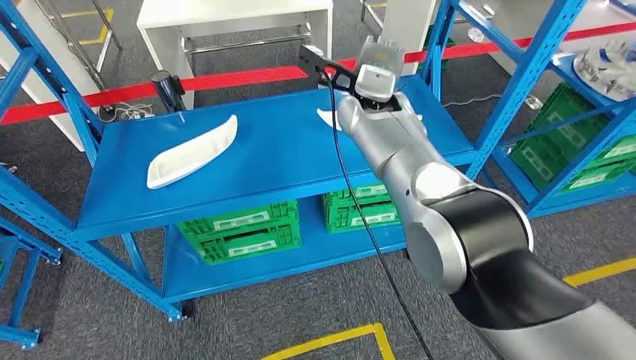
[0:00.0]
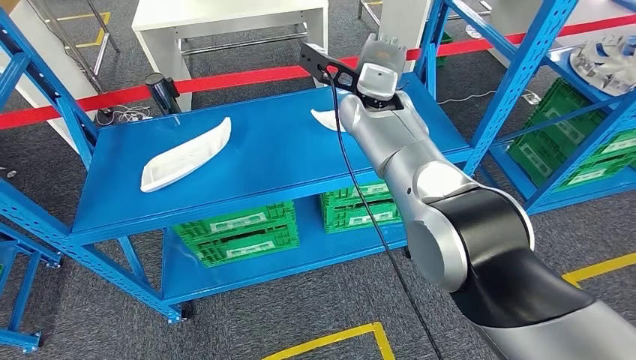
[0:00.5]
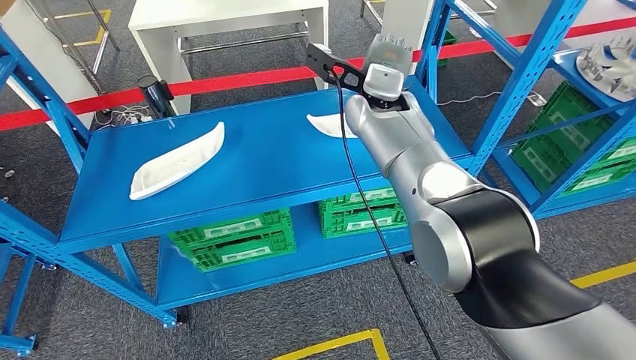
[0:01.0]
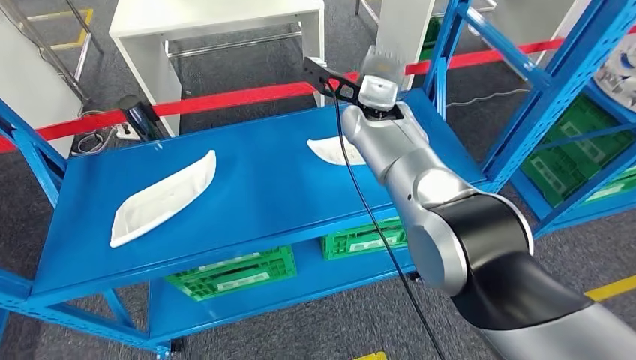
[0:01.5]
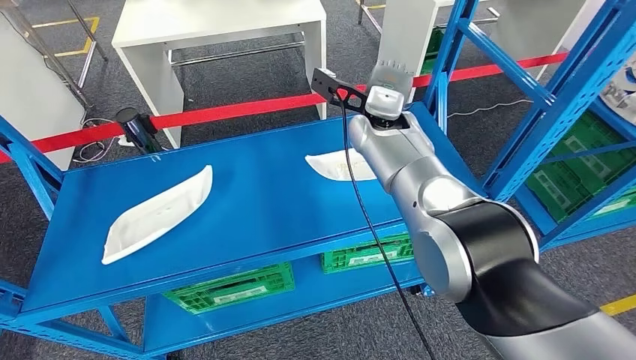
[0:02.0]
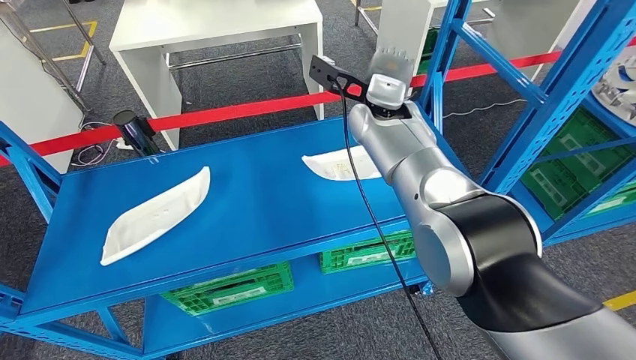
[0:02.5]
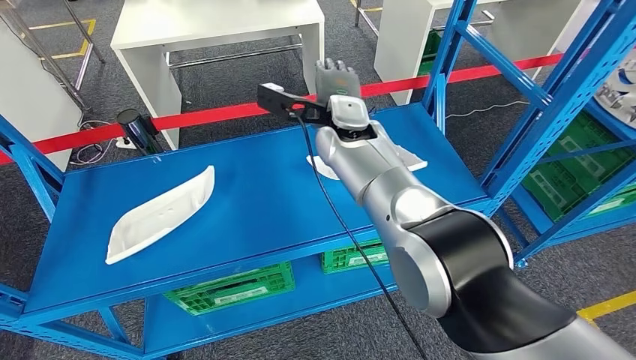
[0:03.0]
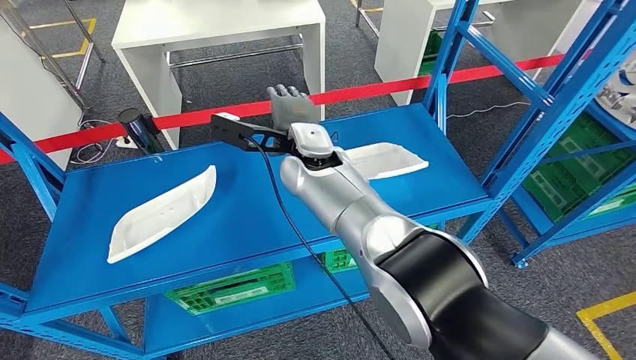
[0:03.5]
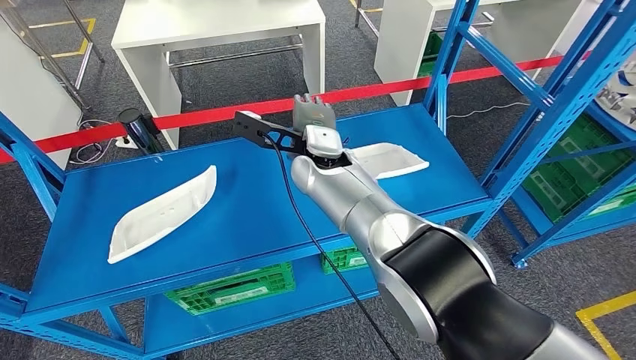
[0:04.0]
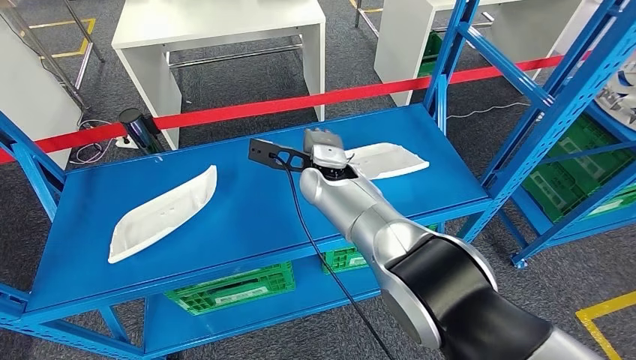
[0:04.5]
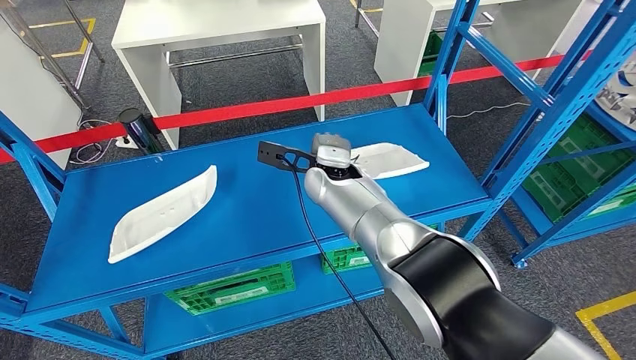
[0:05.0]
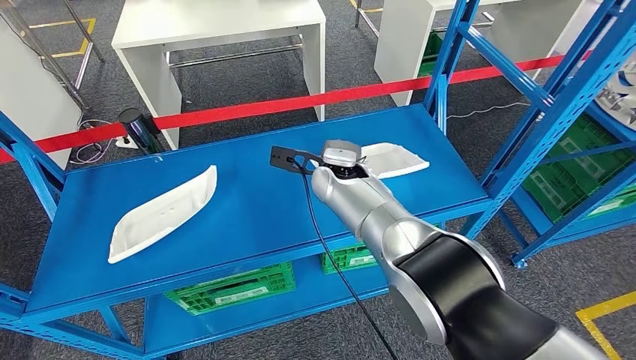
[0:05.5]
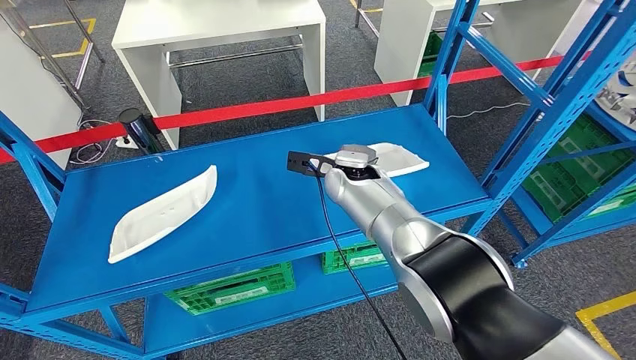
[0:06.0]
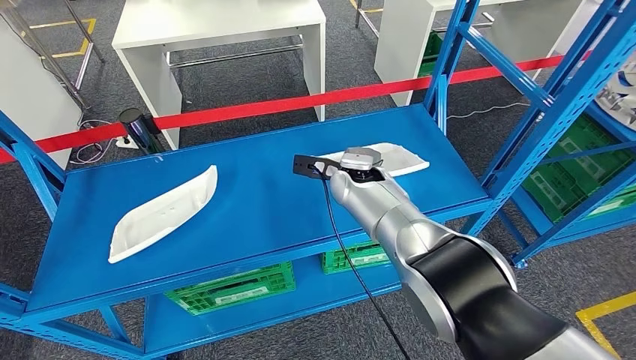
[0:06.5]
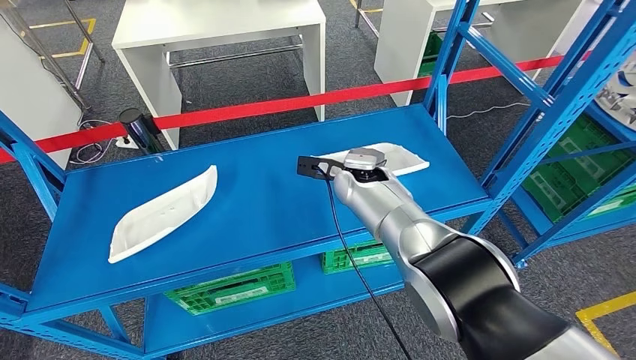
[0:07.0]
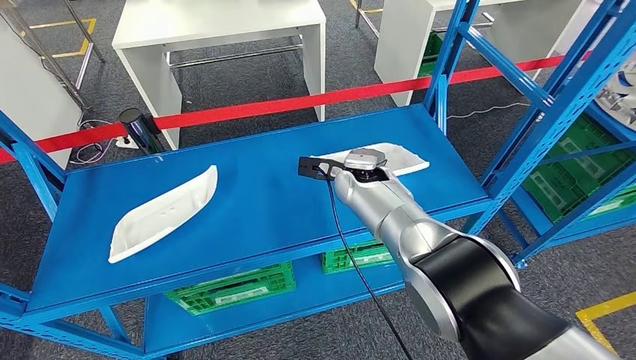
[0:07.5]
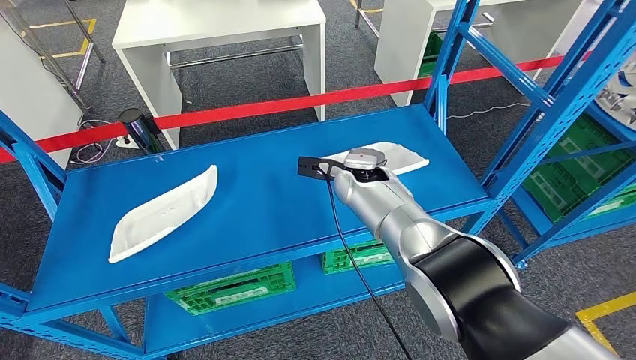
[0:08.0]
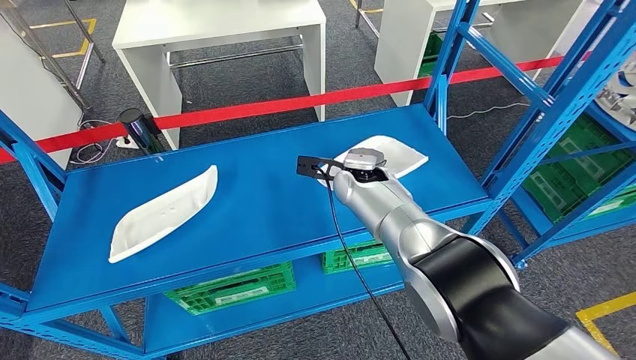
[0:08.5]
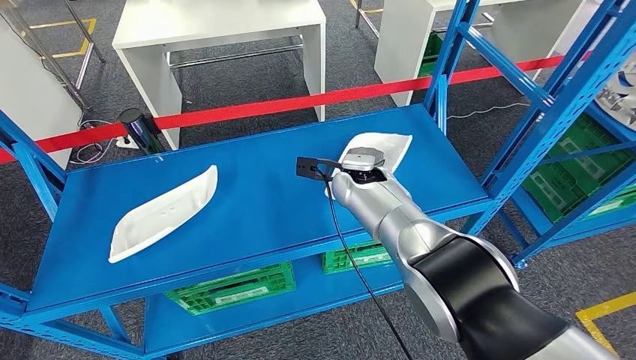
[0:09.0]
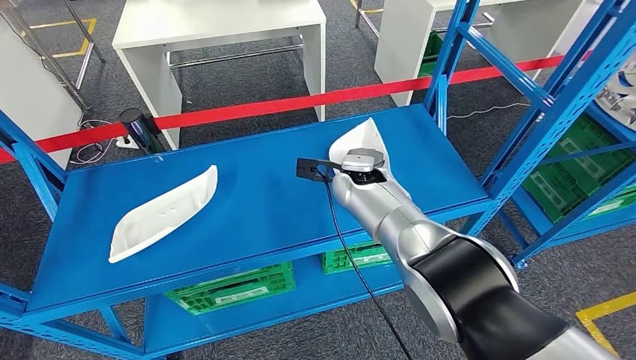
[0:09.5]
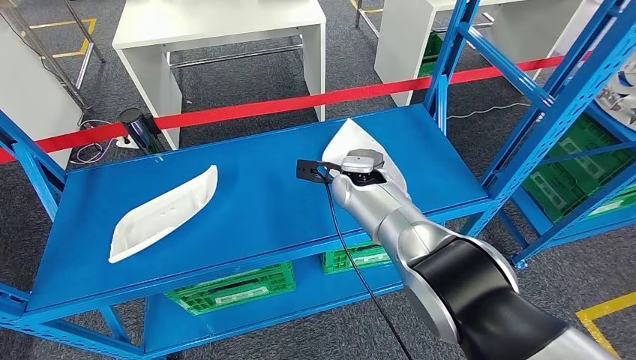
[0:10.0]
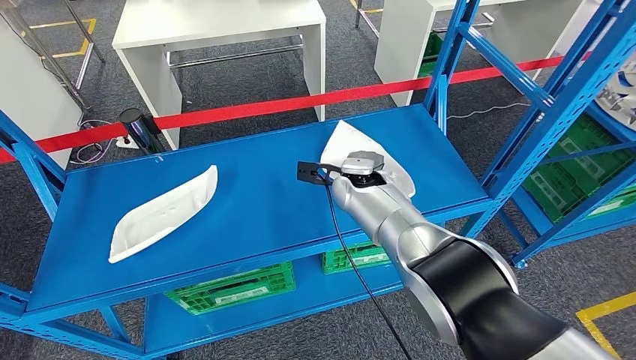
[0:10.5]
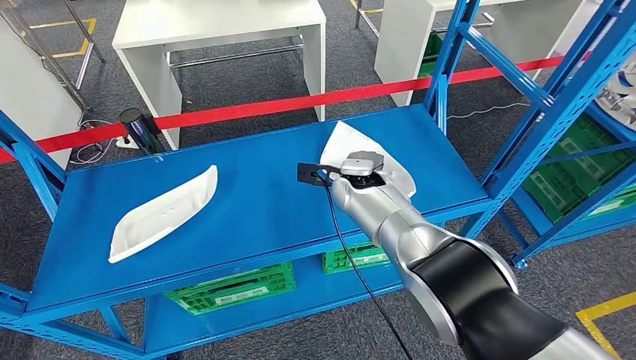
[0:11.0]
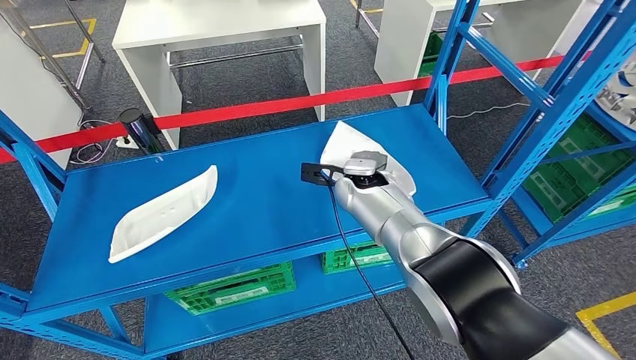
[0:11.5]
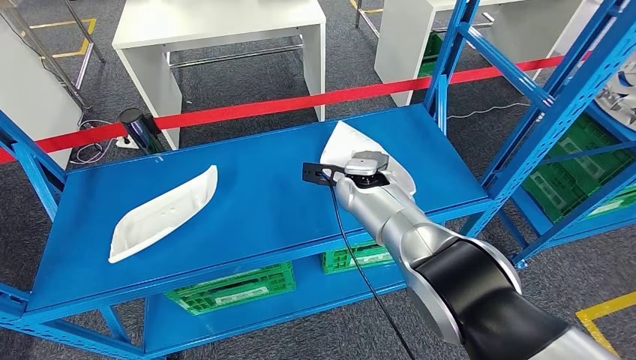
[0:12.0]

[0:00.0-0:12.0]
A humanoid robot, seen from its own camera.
0:04.0 to 0:06.0: The right hand goes roughly 10 cm to the right and downward.
0:06.0 to 0:08.0: The hands make only small movements.
0:08.0 to 0:12.0: The two hands keep their place.

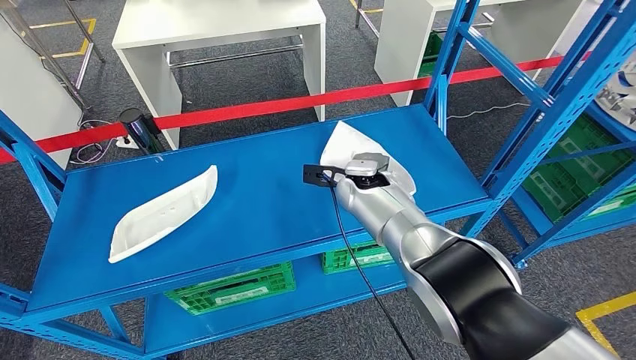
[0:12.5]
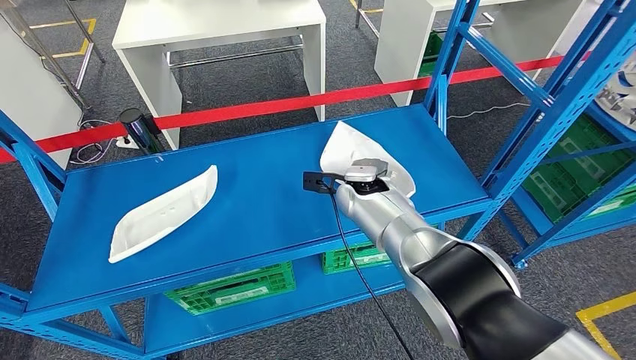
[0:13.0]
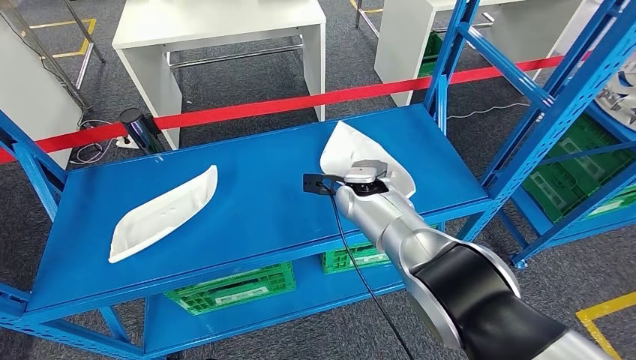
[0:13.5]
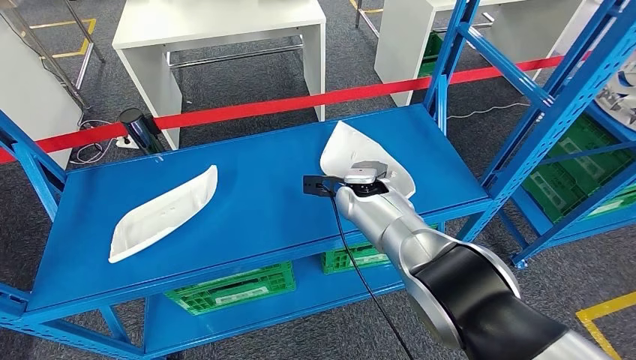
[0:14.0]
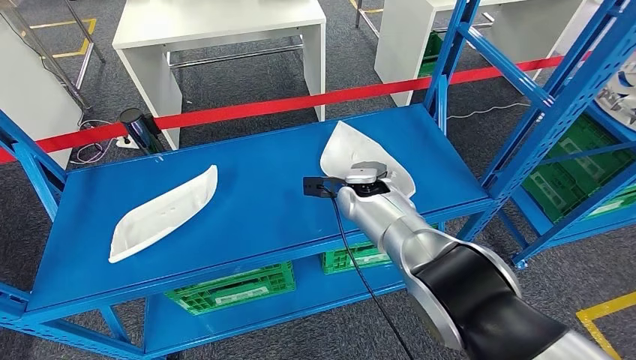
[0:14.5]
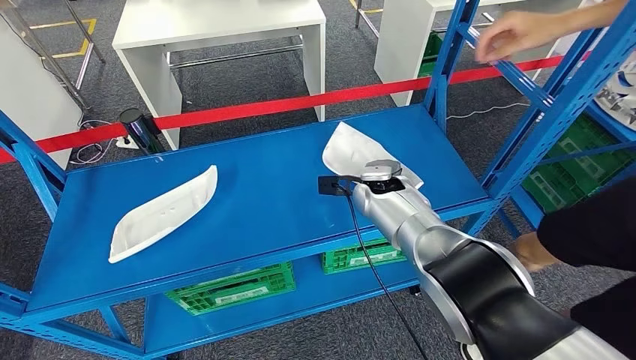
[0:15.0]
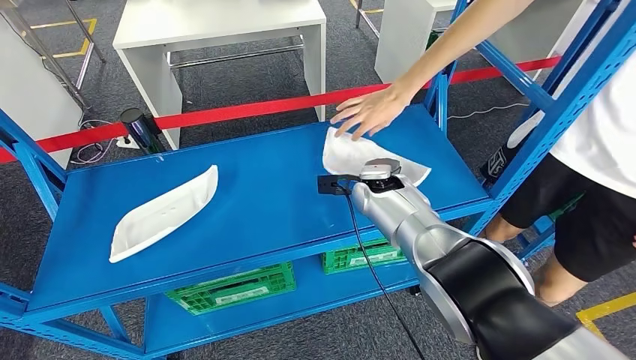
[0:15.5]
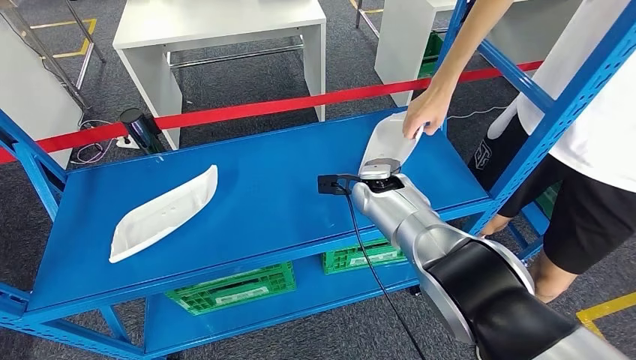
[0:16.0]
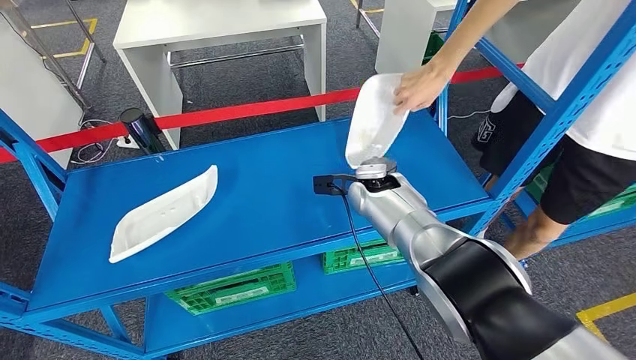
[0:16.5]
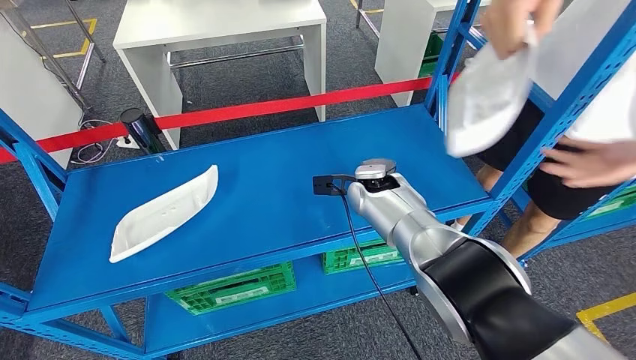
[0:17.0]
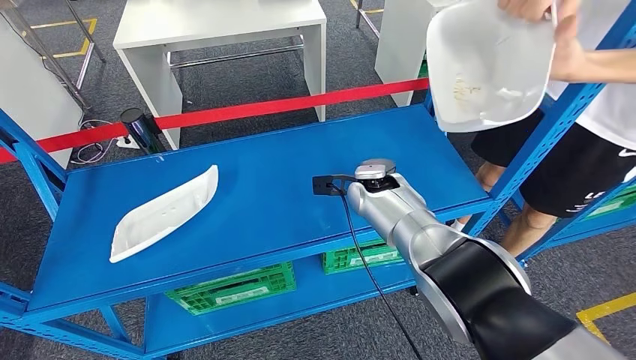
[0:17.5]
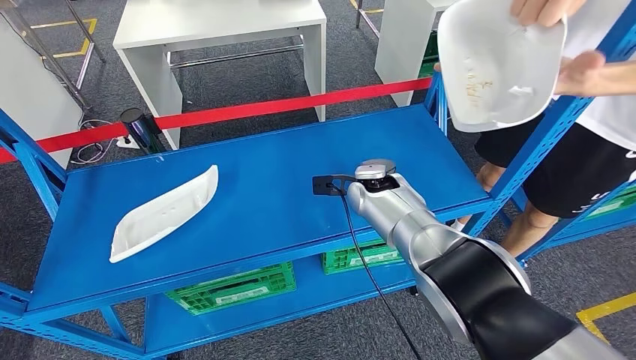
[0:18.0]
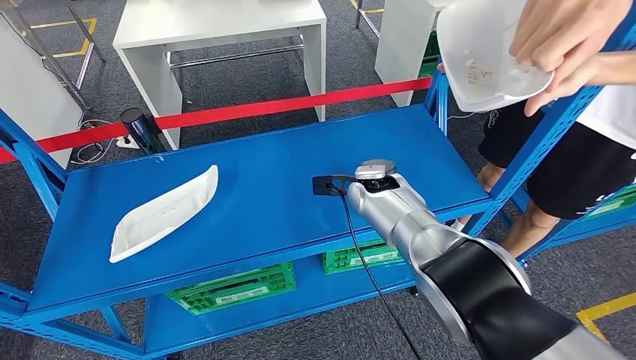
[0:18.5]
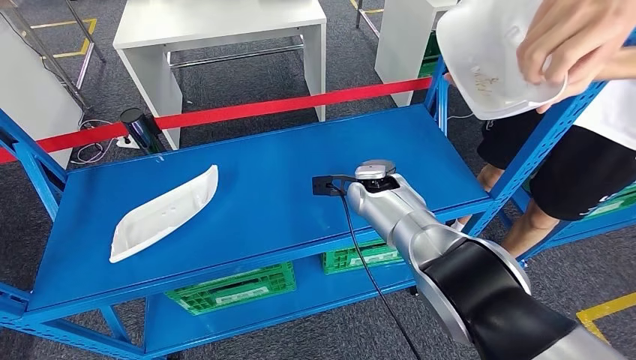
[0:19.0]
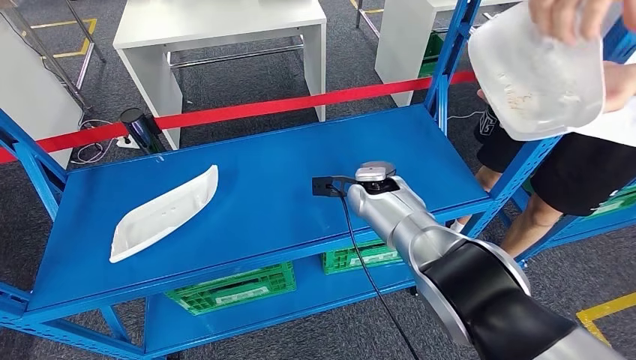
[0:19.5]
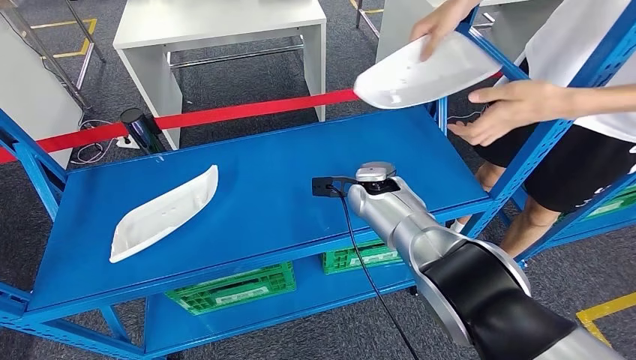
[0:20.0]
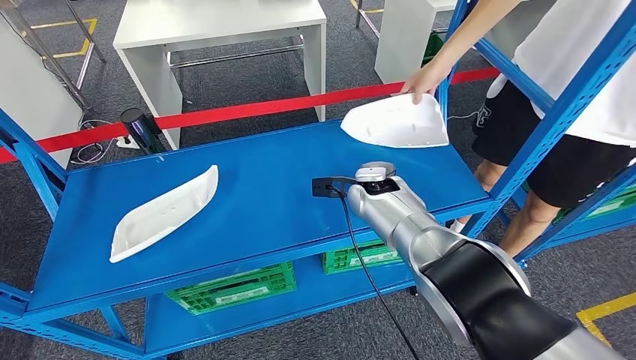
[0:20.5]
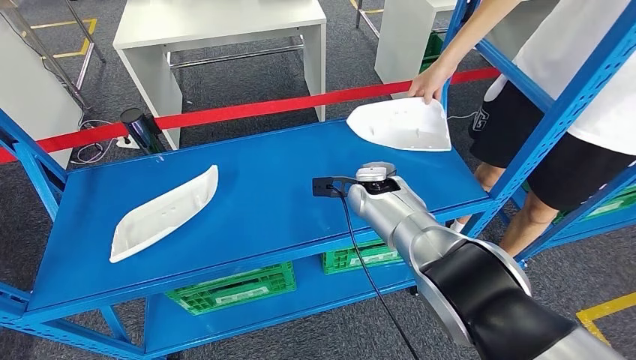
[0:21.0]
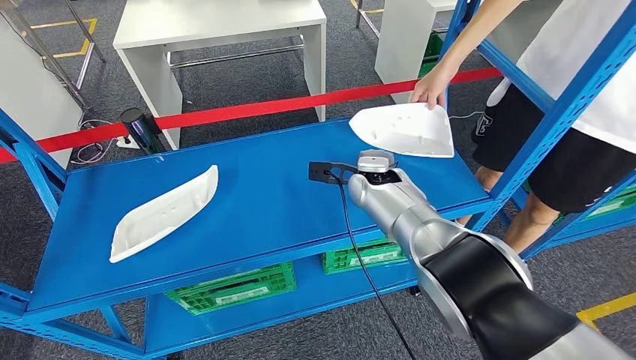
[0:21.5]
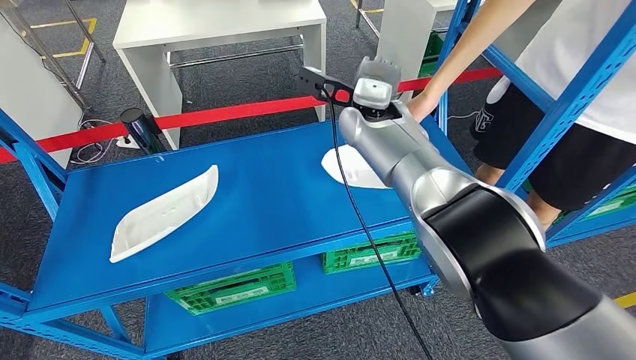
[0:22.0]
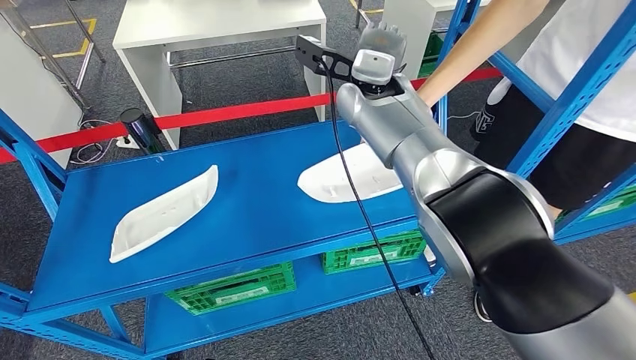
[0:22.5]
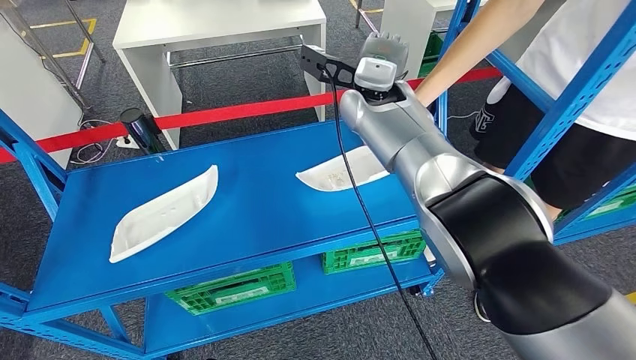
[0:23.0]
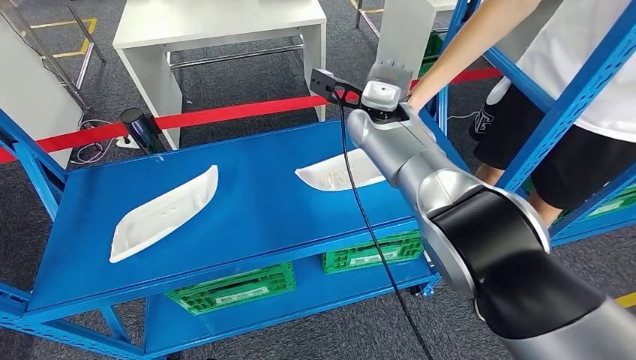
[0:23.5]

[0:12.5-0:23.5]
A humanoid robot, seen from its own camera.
0:12.5 to 0:14.5: The hands move only a little.
0:16.0 to 0:20.0: Neither hand changes place.
0:20.0 to 0:21.5: The hands make only small movements.
0:21.5 to 0:23.5: The right hand heads upward, covering some 15 cm.
